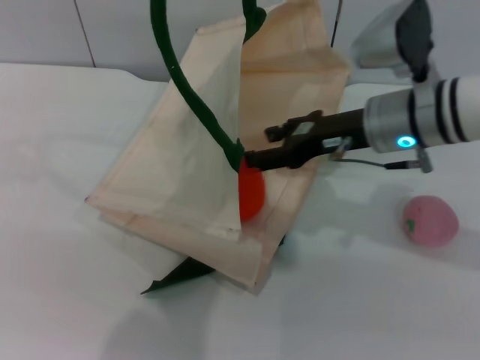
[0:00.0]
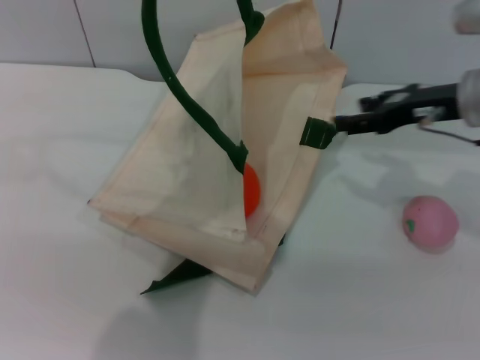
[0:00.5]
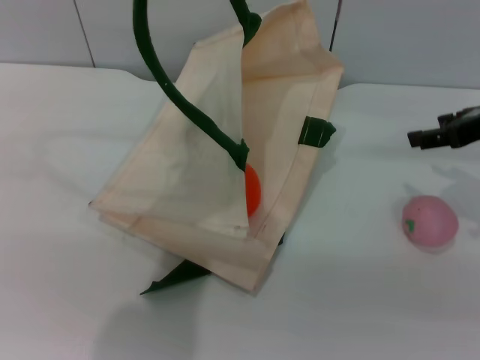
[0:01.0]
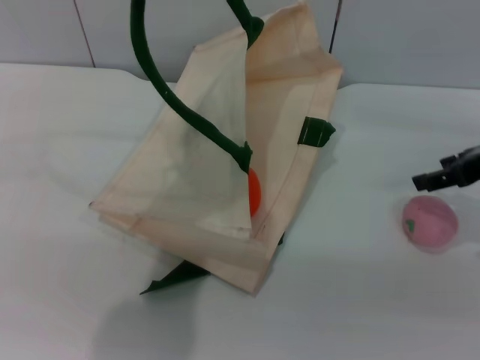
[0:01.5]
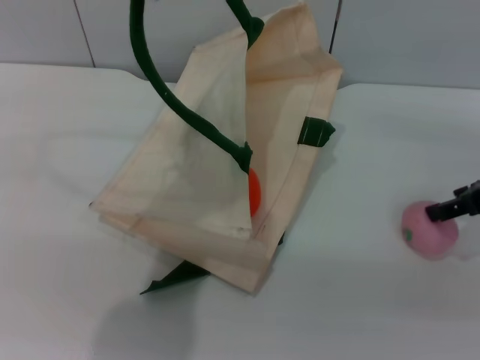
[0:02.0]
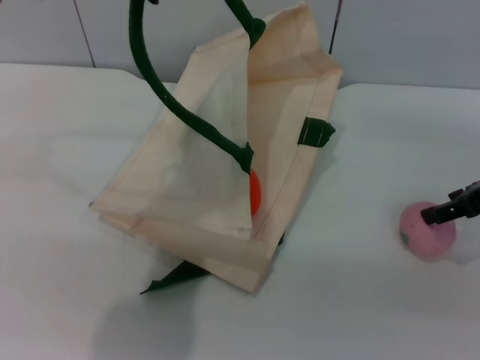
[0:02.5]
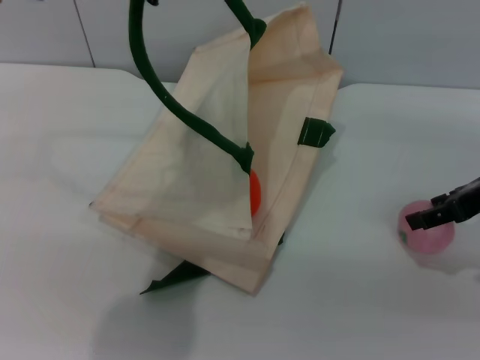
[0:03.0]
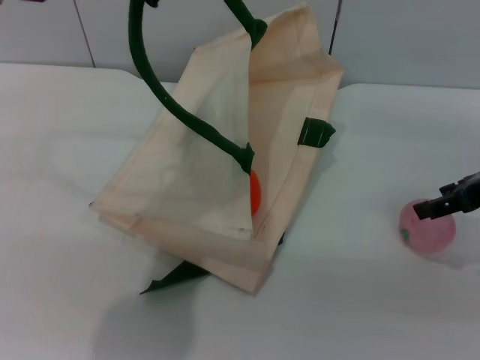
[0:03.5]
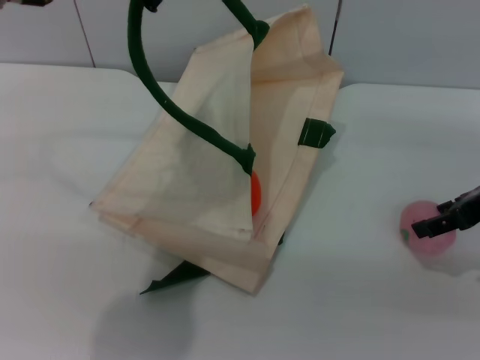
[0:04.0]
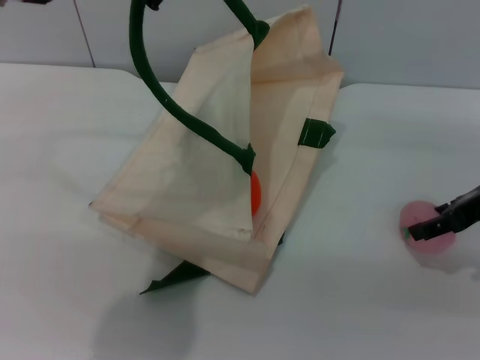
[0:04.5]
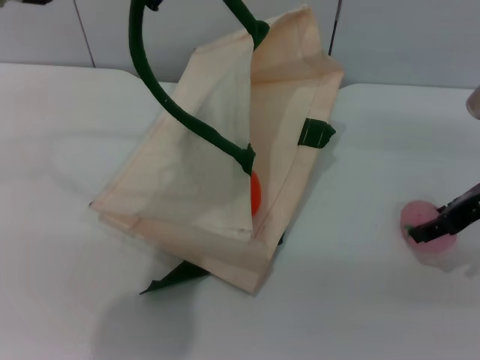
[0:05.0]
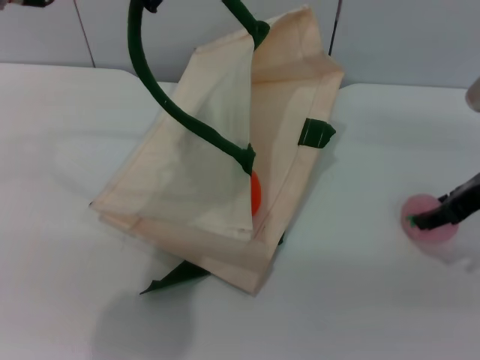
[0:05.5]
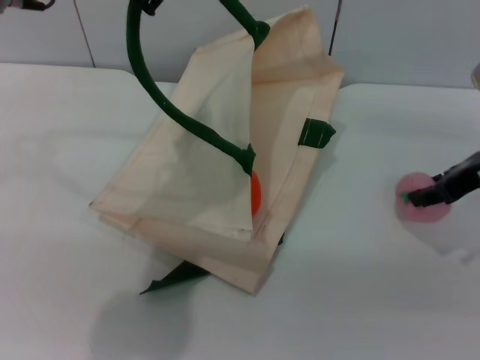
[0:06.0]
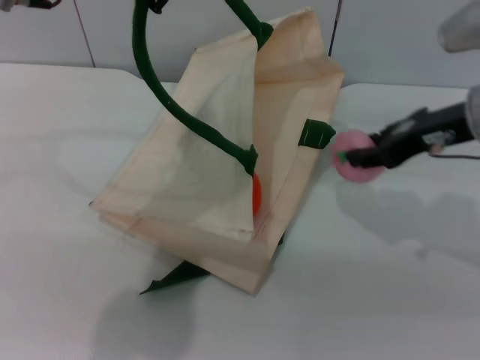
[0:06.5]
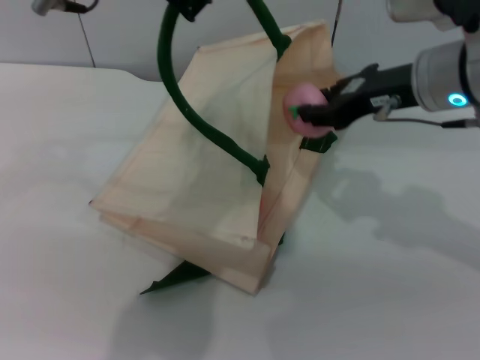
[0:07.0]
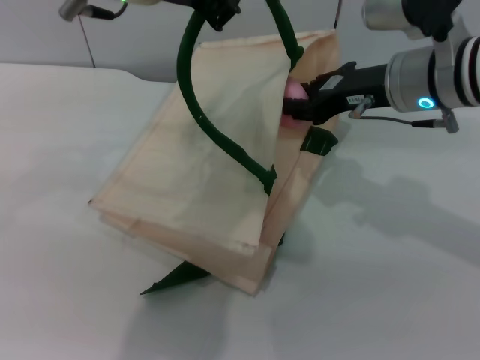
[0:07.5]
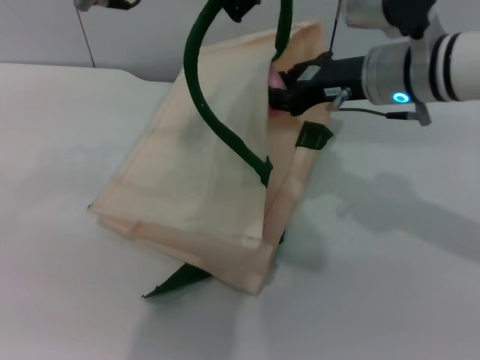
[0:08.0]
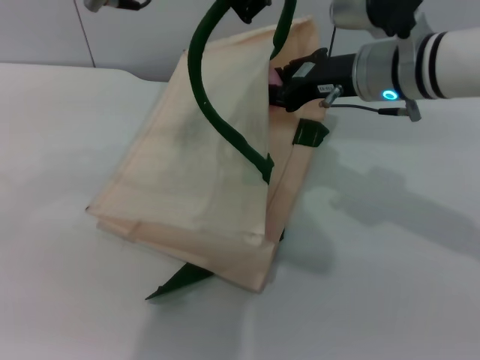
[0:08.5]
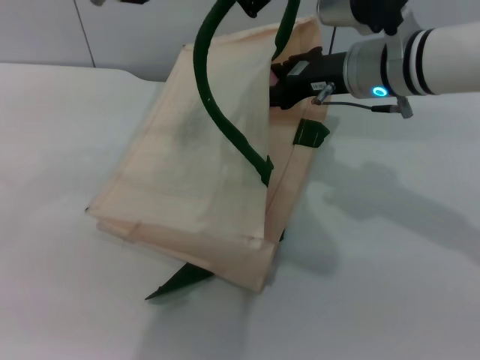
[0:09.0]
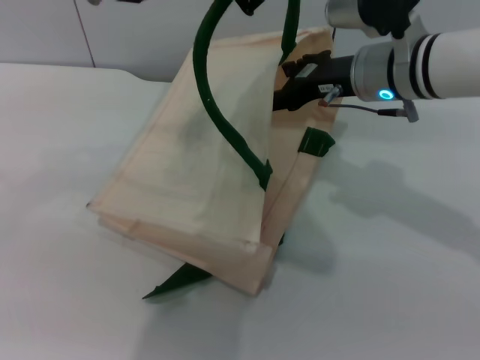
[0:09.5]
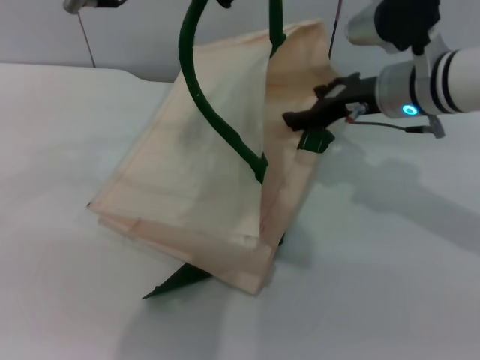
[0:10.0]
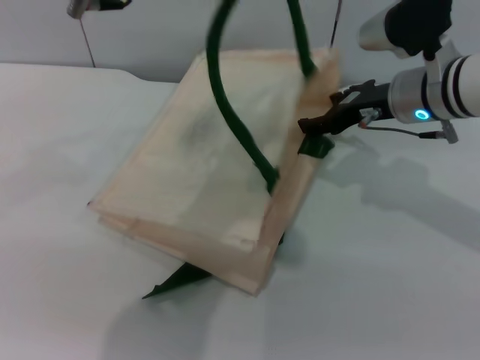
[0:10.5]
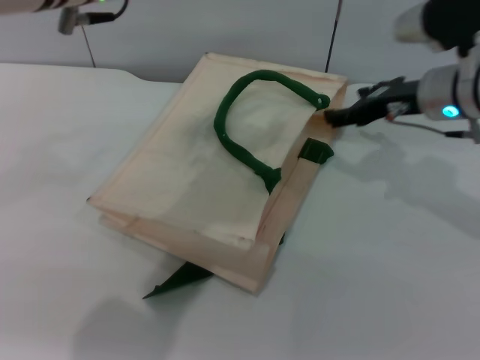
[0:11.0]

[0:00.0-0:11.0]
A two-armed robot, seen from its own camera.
Task of the whole recording: pick up the orange and peach from the table and place it in the white handbag.
Step, 0:00.5 to 0:06.0: Pick up the peach with the right gripper.
Step, 0:06.5 to 0:10.0: Place the peach into the woven bag with the right gripper.
Step, 0:10.5 to 0:11.0: Lower the woven bag with the left gripper to close it.
0:00.0 to 0:02.0: The right gripper shifts roughly 15 cm to the right.
0:02.0 to 0:05.5: There are only small adjustments of the grippers.
0:05.5 to 0:07.5: The right gripper moves to the left, roughly 10 cm, and closes up.
0:07.5 to 0:09.0: There are only small adjustments of the grippers.
0:09.0 to 0:11.0: The right gripper shifts roughly 5 cm to the right, and opens; the left gripper shifts by some 5 cm, and opens.

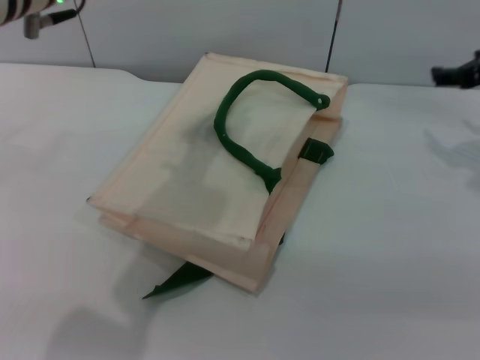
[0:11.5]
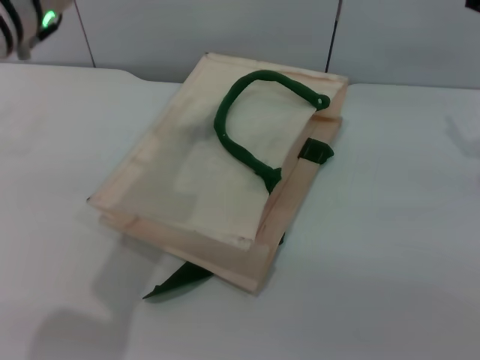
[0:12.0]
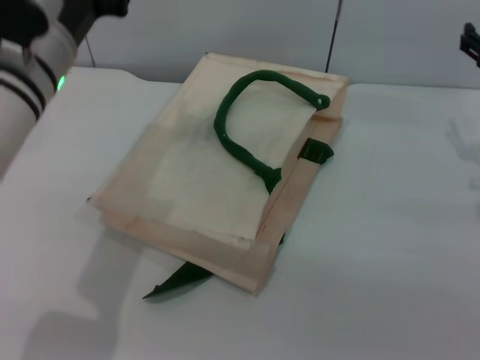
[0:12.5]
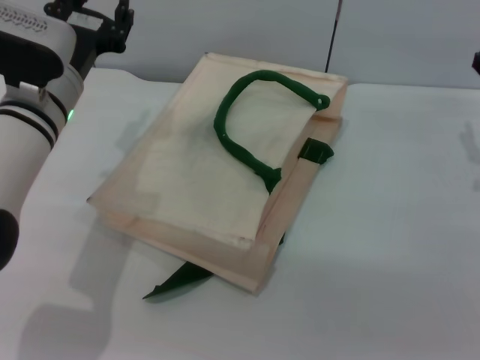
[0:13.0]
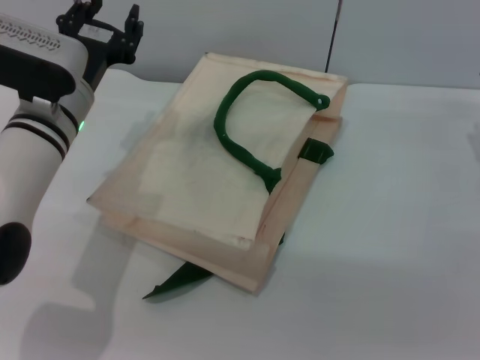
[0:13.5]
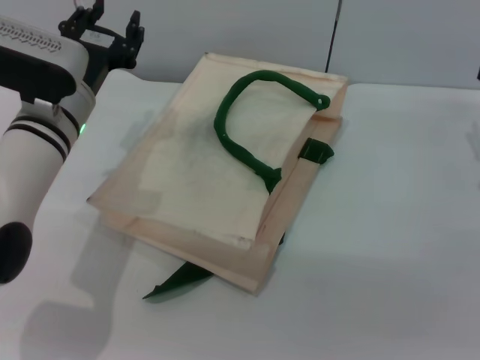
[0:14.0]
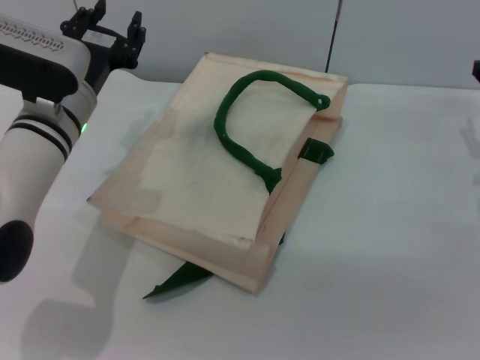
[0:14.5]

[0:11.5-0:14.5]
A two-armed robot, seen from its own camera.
Task of the whole recording: pick up the orange and peach from the table and place it in the white handbag.
0:11.5 to 0:13.0: The right gripper moves downward, some 5 cm. The left gripper is displaced downward by roughly 15 cm.
0:13.0 to 0:14.5: There are only small adjustments of the grippers.
